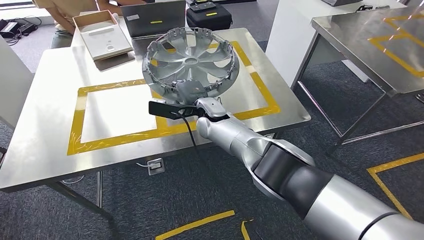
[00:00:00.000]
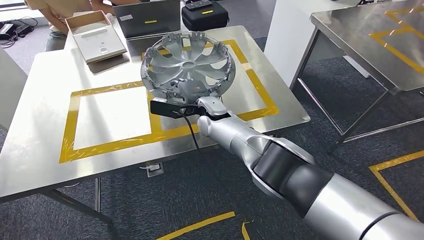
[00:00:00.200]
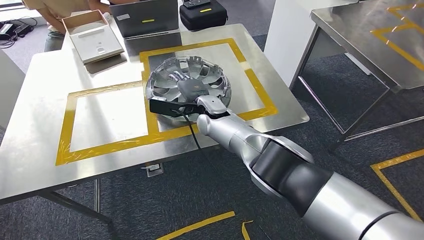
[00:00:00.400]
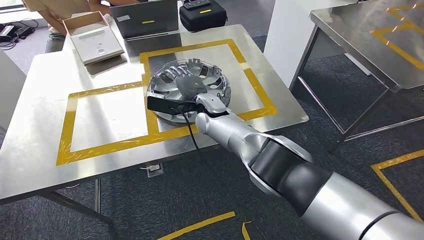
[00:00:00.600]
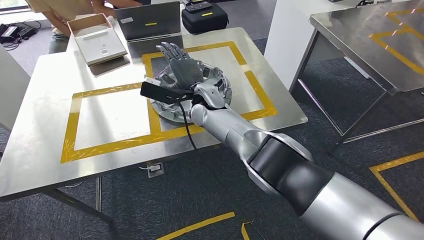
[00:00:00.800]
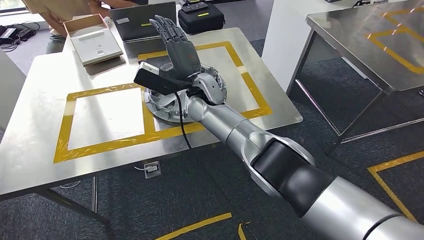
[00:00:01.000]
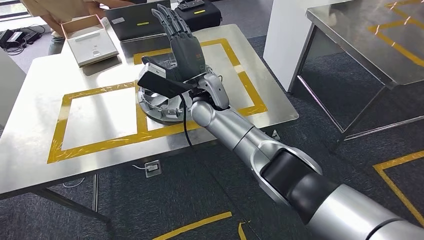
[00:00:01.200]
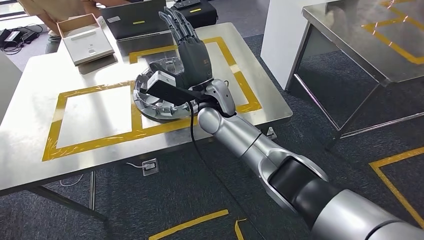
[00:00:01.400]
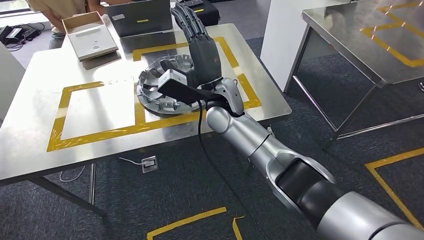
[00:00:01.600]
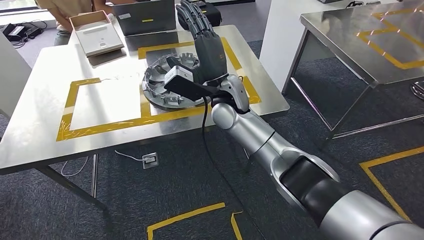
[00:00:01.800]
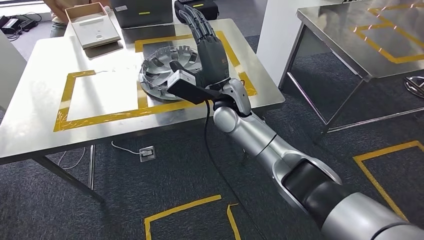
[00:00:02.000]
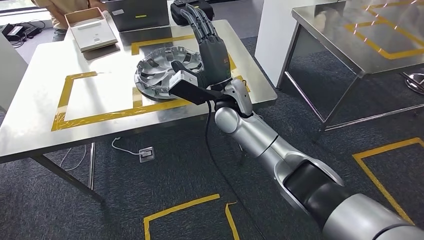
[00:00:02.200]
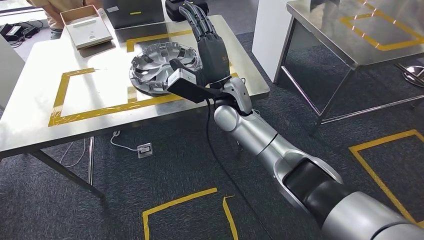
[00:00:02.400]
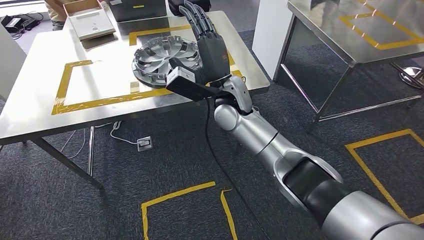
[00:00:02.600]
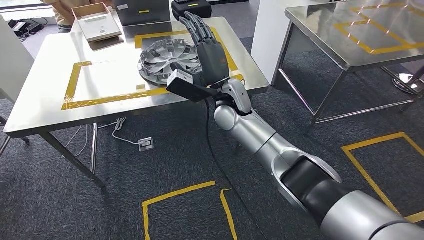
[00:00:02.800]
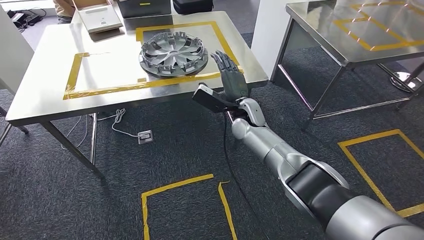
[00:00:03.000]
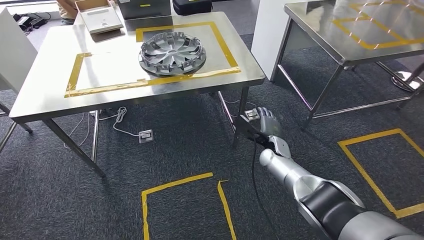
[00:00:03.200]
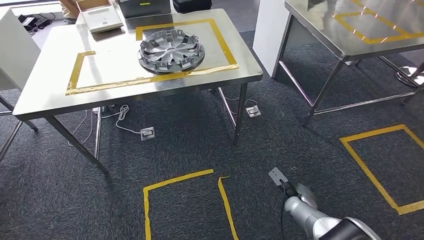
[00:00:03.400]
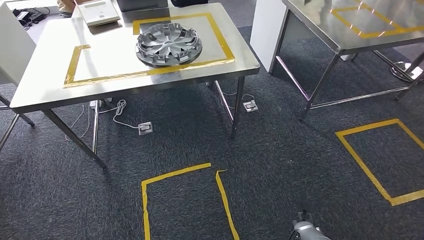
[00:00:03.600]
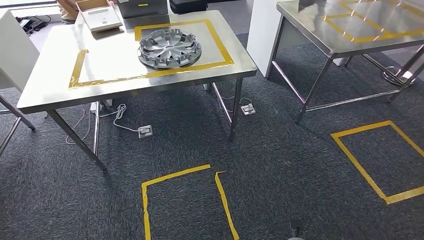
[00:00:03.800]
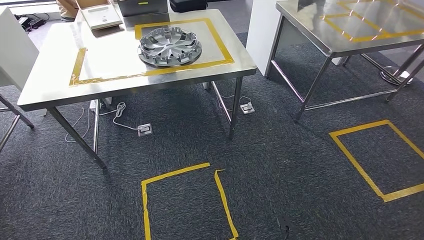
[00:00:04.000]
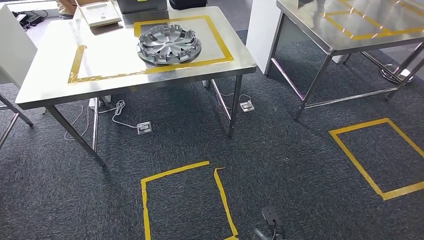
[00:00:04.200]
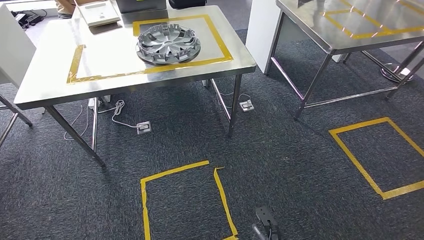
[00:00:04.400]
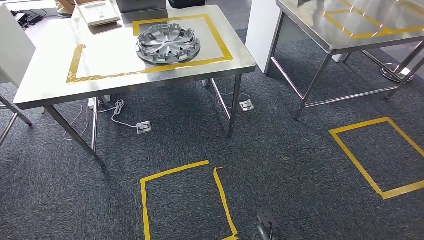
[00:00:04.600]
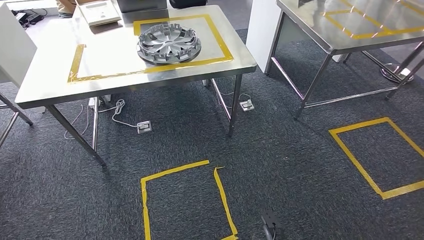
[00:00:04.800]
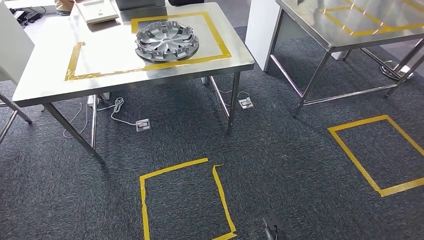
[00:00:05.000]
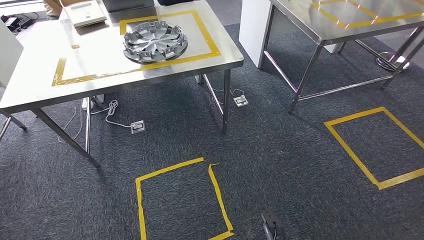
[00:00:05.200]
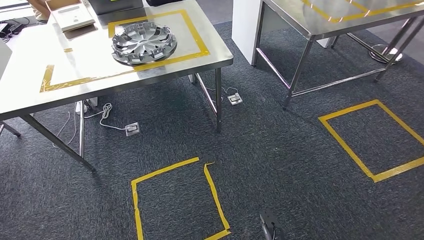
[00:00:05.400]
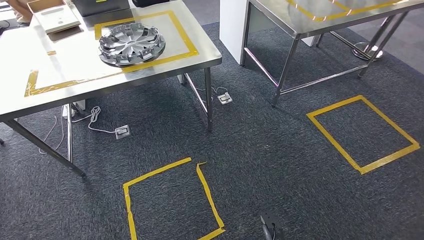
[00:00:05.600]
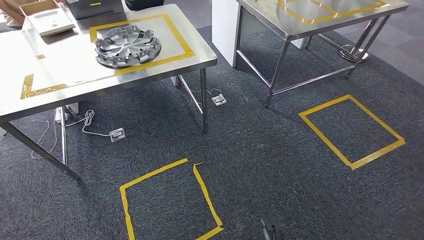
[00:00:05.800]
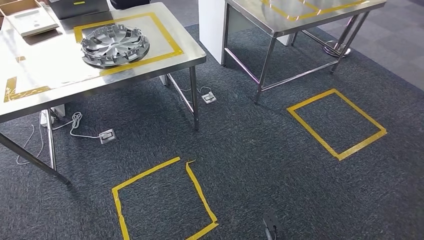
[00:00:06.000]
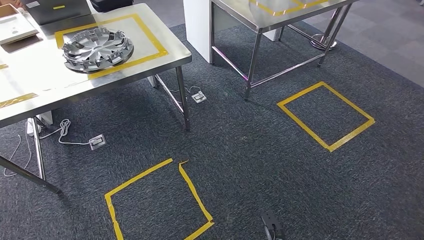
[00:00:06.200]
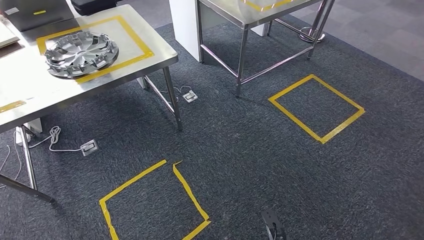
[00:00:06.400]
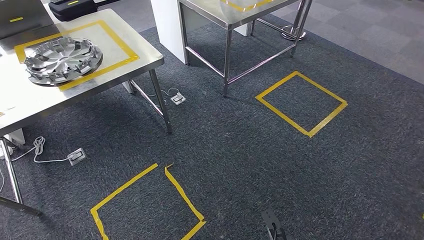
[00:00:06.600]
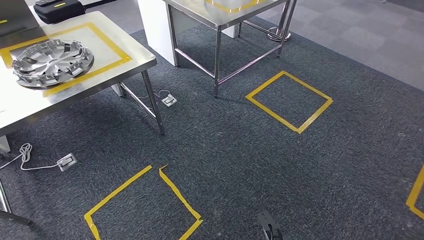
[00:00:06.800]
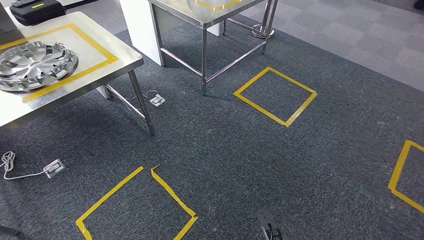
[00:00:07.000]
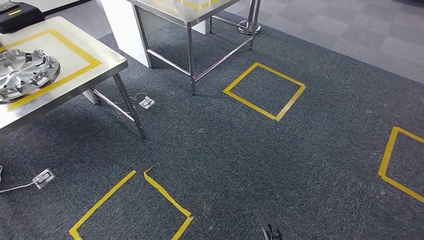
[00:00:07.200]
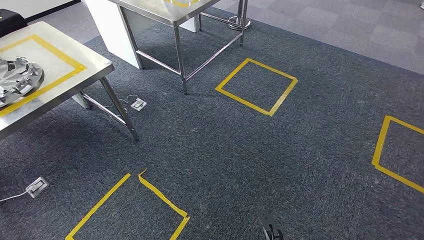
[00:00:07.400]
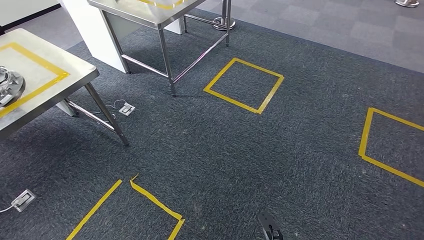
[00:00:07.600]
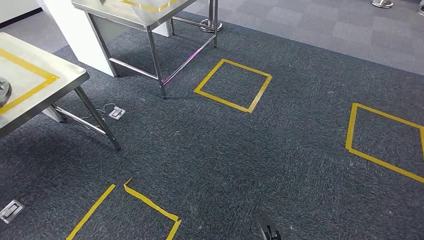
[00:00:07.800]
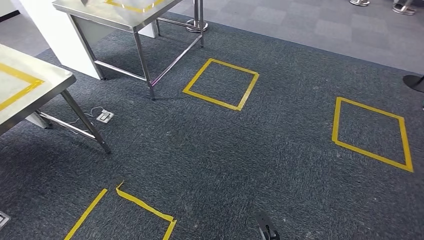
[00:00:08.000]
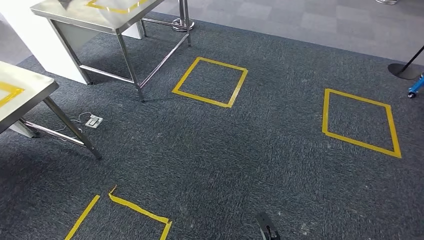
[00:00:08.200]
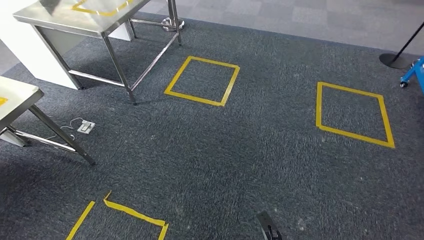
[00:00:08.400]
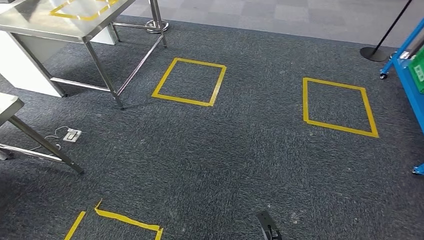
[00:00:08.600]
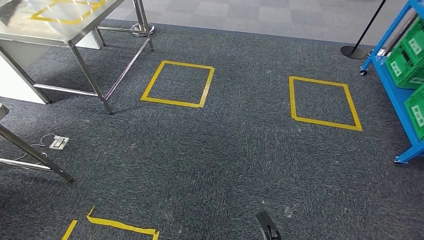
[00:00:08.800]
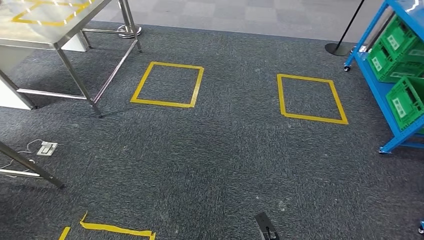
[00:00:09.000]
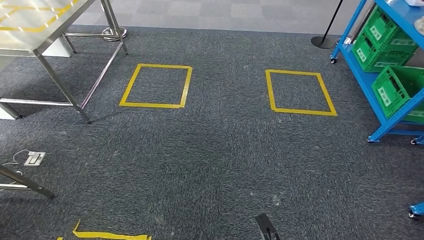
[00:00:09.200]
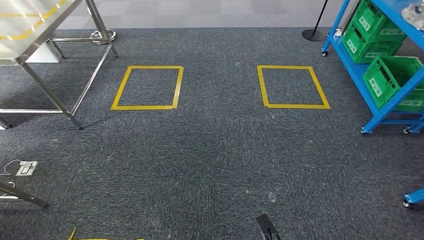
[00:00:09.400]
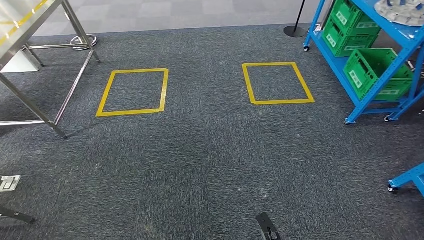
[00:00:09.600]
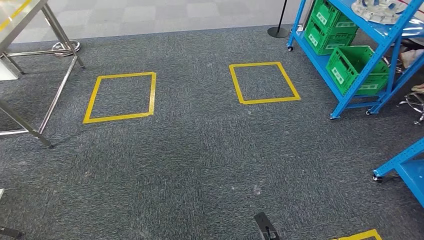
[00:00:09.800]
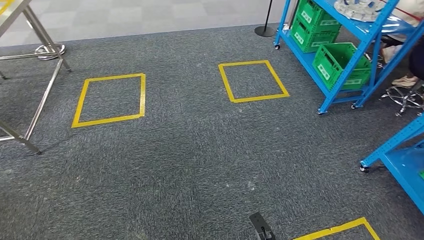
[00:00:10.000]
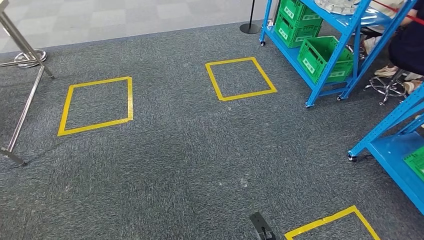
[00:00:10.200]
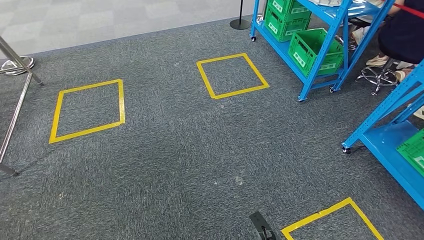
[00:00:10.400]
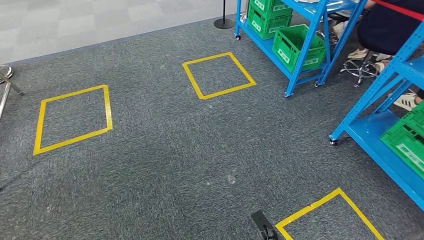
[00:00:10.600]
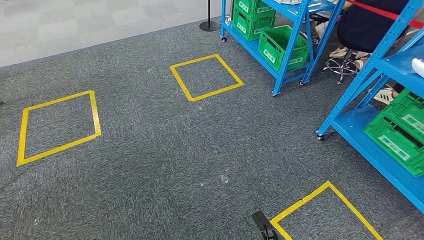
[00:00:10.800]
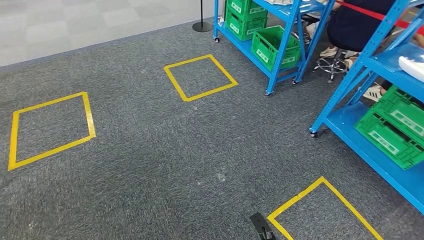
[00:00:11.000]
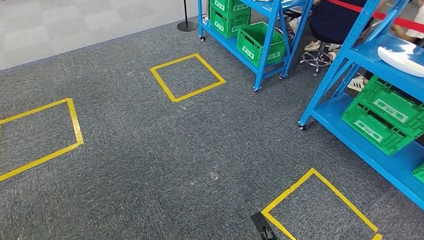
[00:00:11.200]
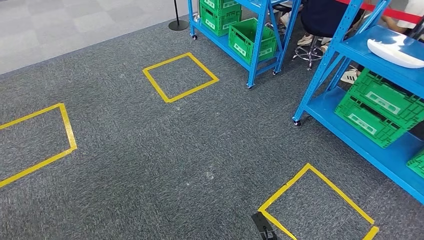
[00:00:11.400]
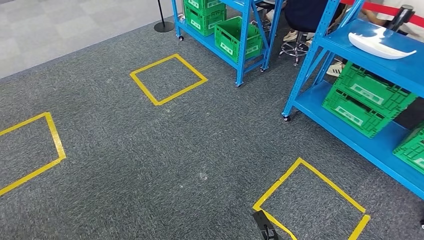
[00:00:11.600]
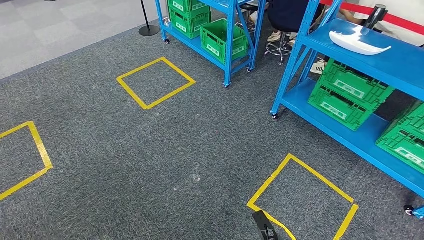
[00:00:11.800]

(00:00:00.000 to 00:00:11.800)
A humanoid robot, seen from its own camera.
Step, 00:00:00.000 - 00:00:01.600: Insert the small parts into the corresponding slots on the workbench.
Step, 00:00:02.000 - 00:00:11.800: Return to the initial position at the workbench.
